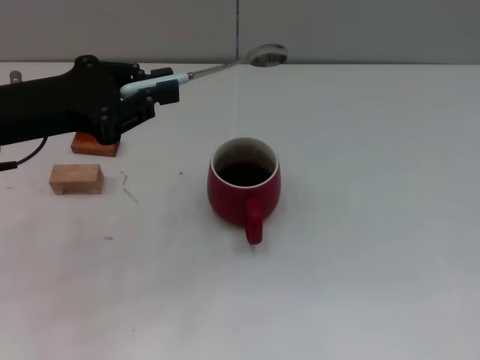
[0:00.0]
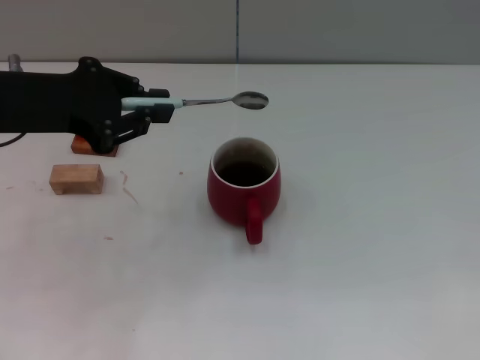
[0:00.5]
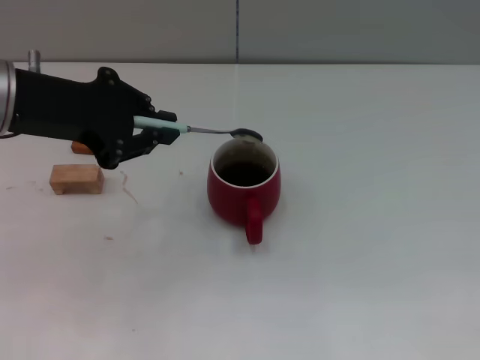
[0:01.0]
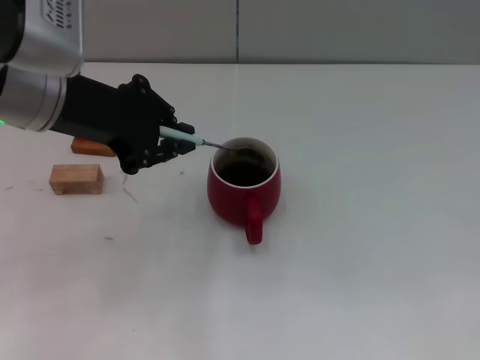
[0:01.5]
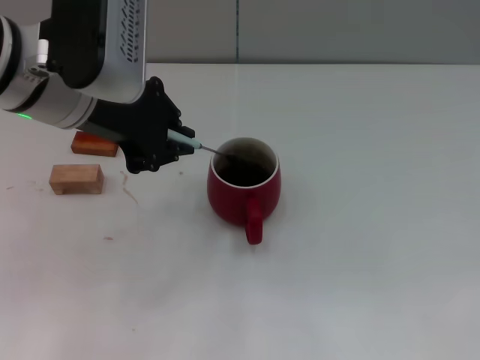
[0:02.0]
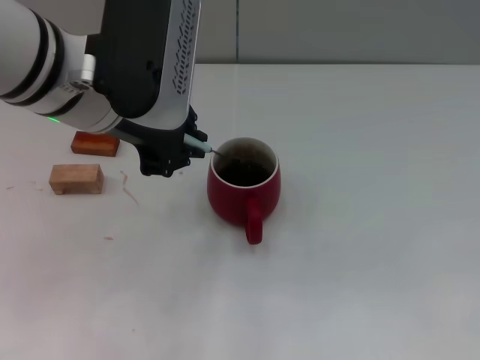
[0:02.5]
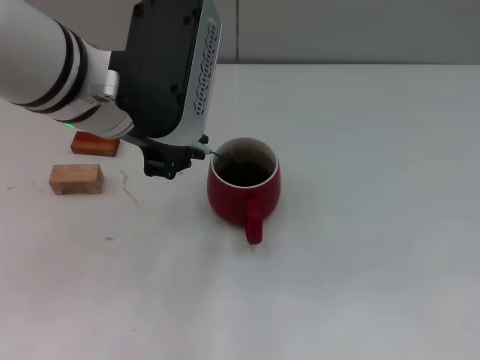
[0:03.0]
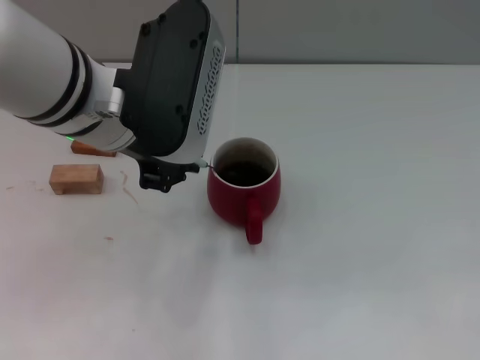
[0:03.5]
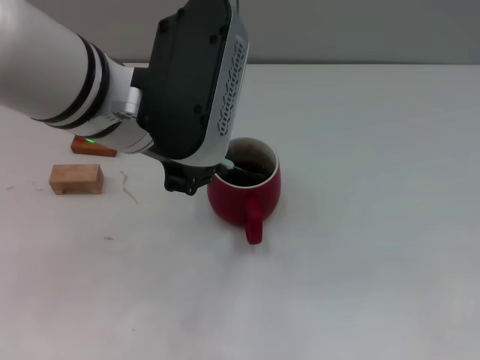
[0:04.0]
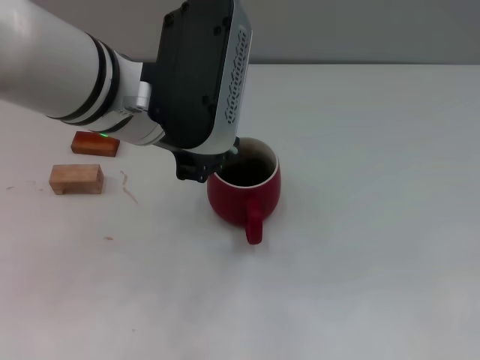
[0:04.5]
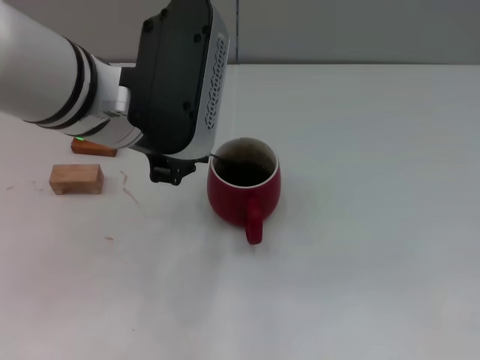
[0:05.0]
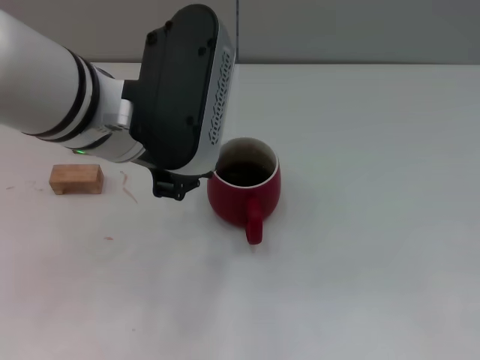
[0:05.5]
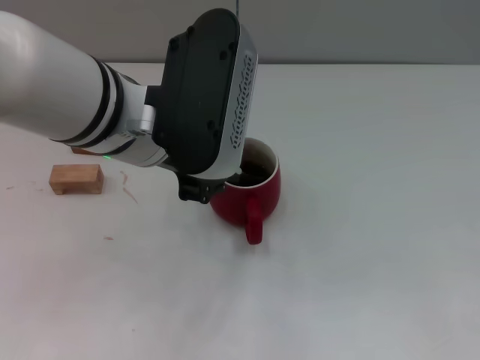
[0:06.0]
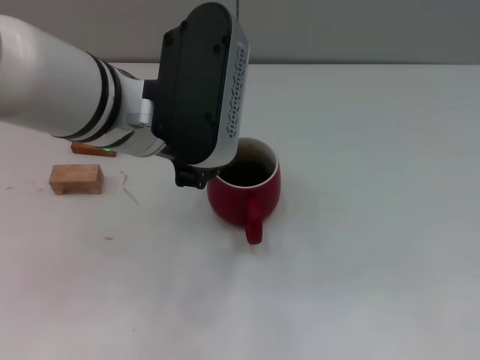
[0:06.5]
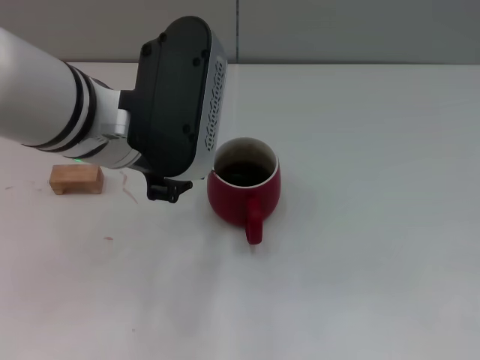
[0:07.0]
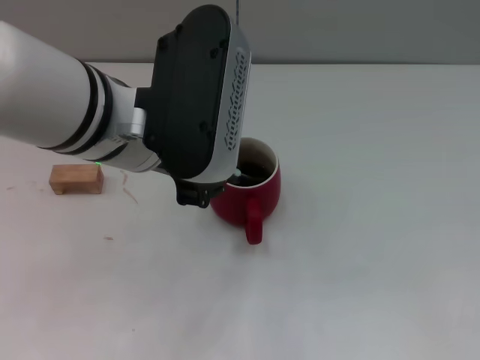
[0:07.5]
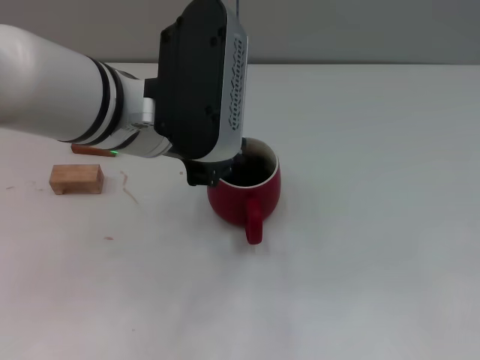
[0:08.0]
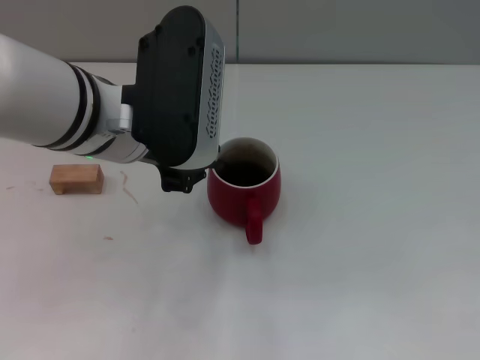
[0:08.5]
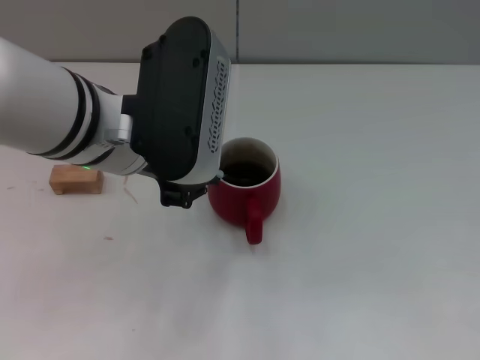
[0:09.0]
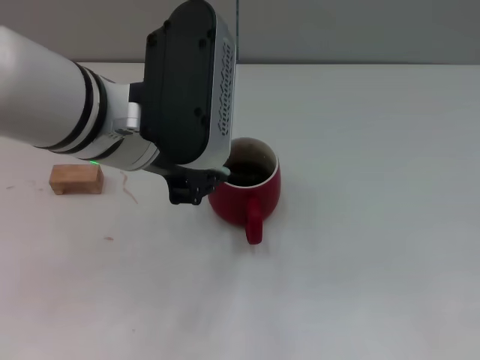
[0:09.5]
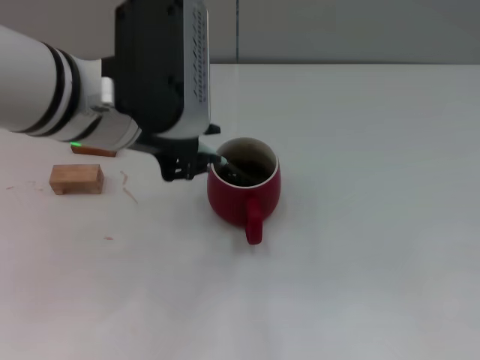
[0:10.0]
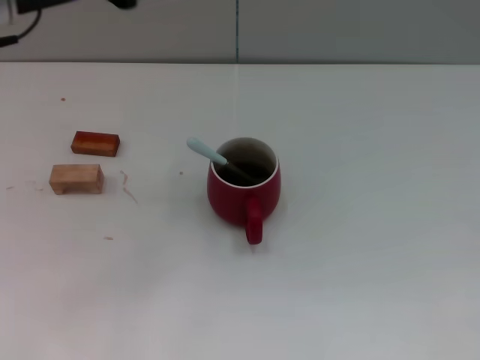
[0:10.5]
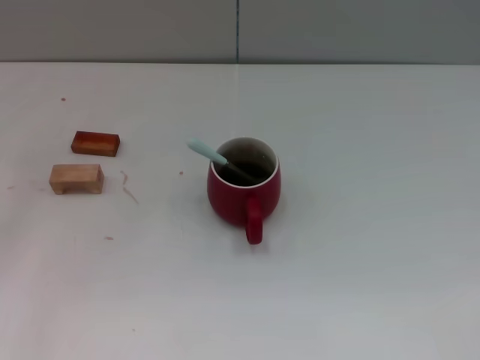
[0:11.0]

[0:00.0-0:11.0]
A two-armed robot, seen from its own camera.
Task of the whole recording: Move the red cup to the center, lift the blue spoon, stir it three times in the cup, and put the spoon into the cup.
Step, 0:00.0 to 0:10.0: Stir the coffee in the cup with the left gripper.
0:00.0 to 0:02.0: The left gripper shifts about 10 cm to the right and upward.
0:02.0 to 0:03.5: The grippers make only small movements.
0:03.5 to 0:09.0: The grippers move only a little.
0:09.0 to 0:11.0: The left gripper goes approximately 25 cm to the left.

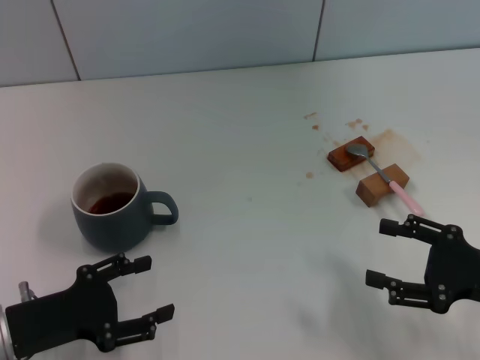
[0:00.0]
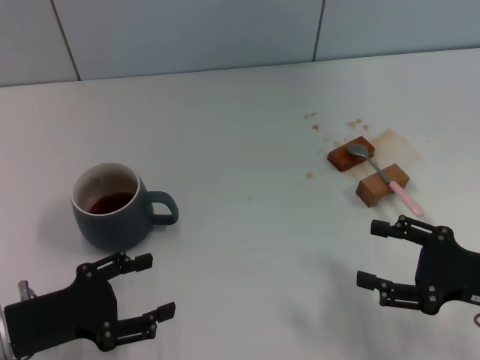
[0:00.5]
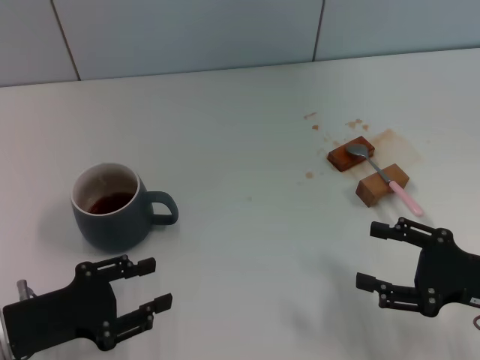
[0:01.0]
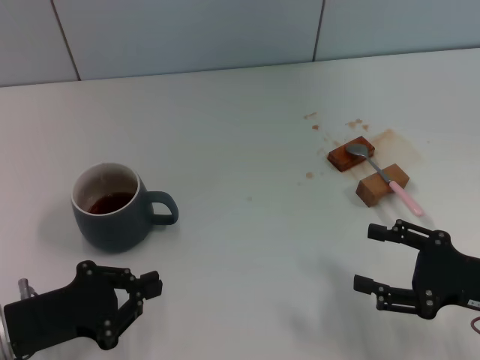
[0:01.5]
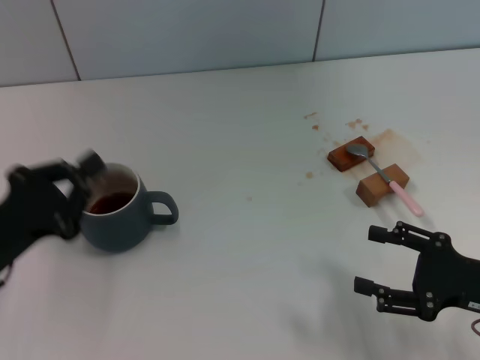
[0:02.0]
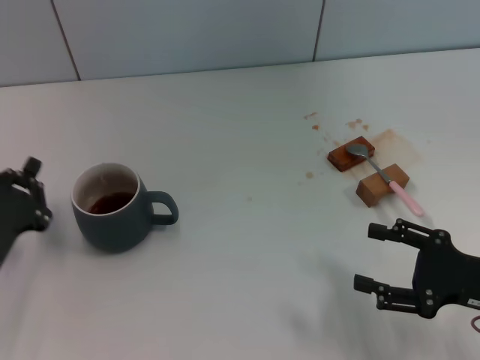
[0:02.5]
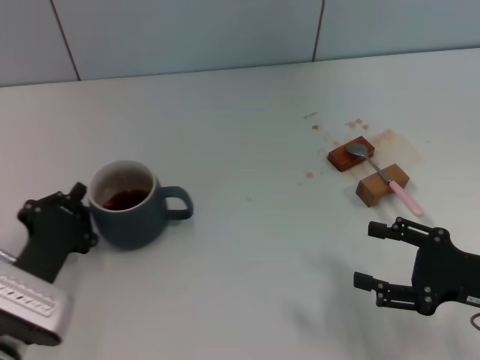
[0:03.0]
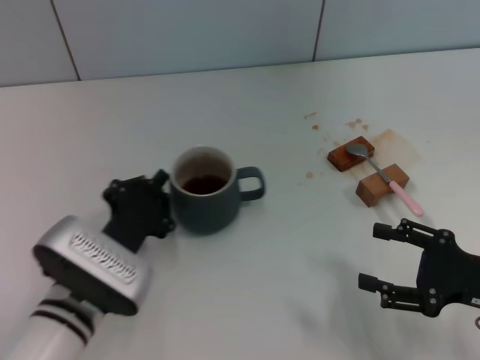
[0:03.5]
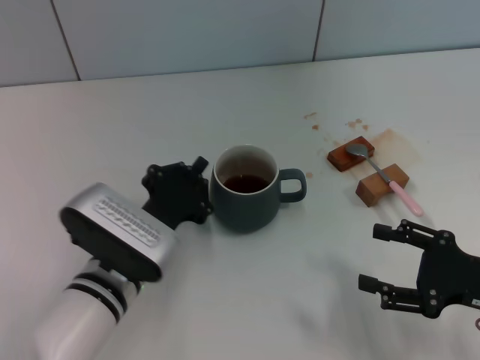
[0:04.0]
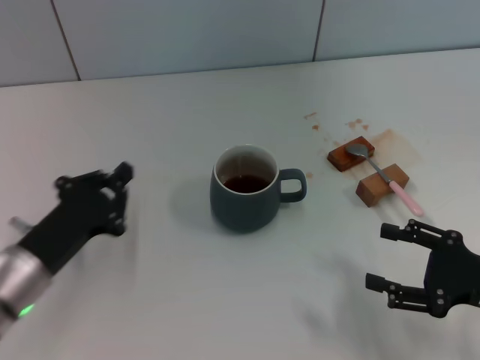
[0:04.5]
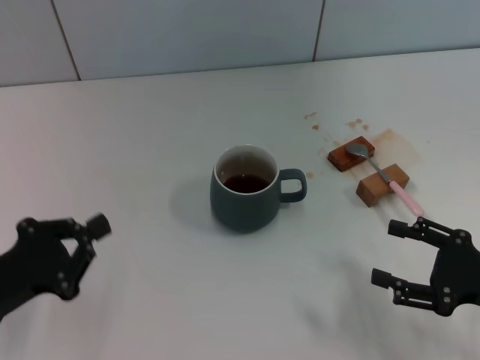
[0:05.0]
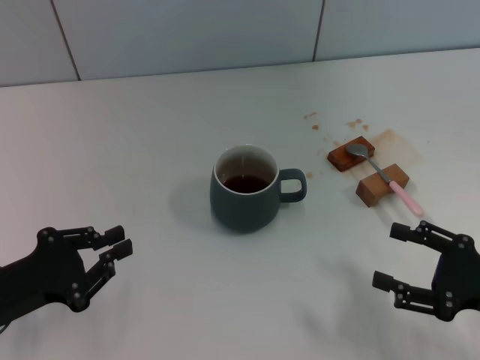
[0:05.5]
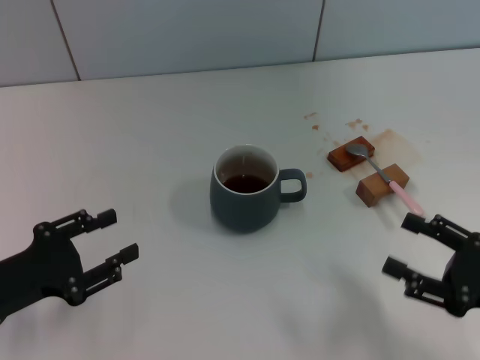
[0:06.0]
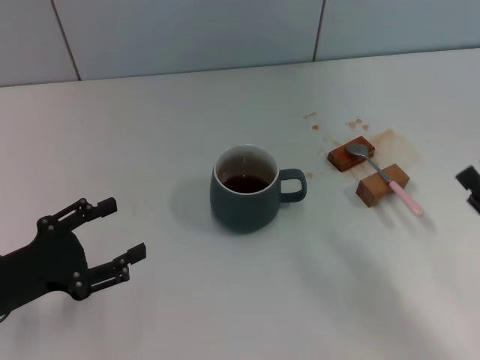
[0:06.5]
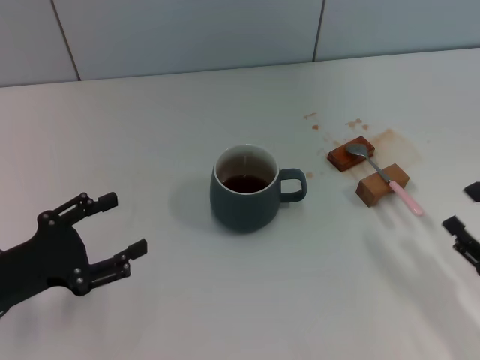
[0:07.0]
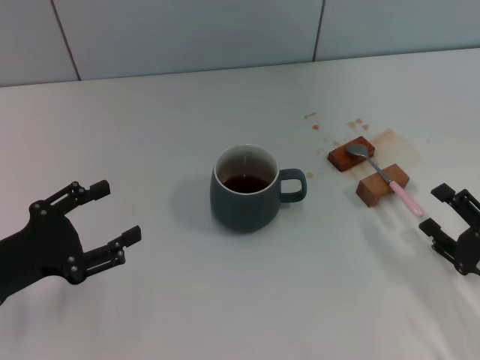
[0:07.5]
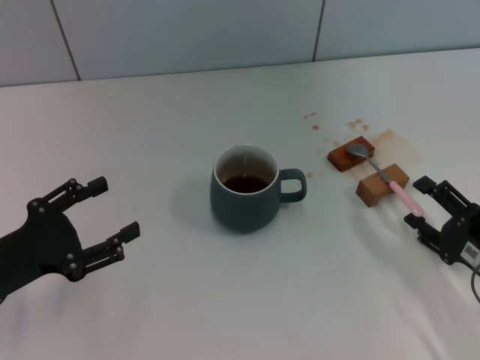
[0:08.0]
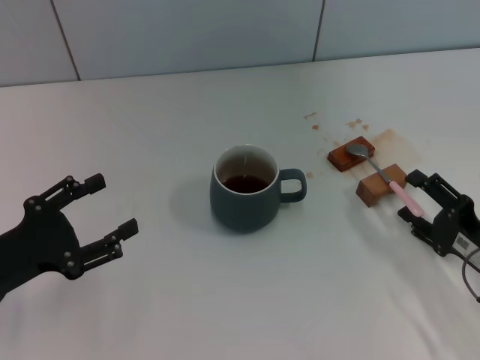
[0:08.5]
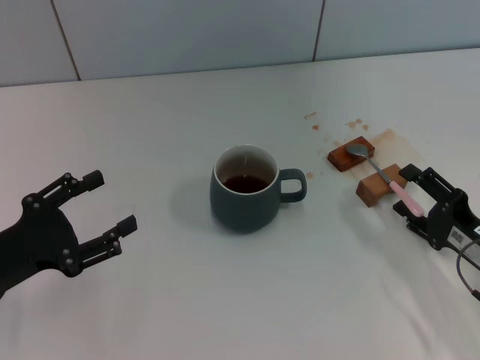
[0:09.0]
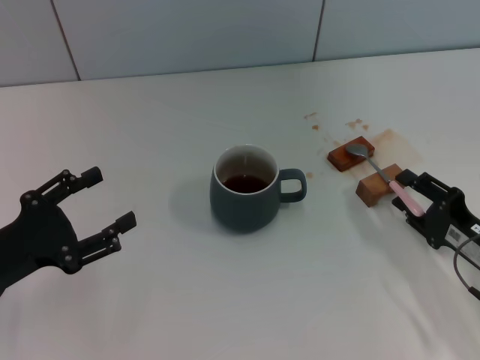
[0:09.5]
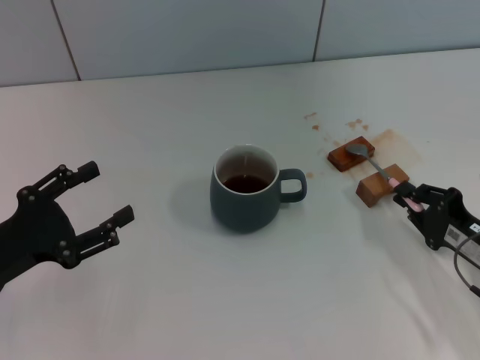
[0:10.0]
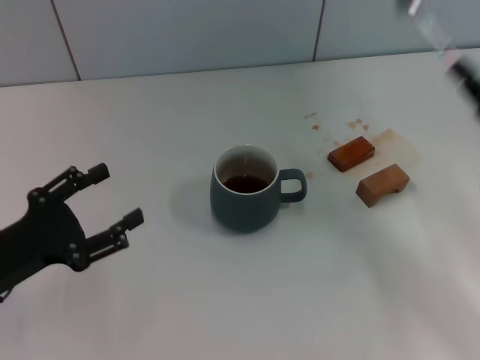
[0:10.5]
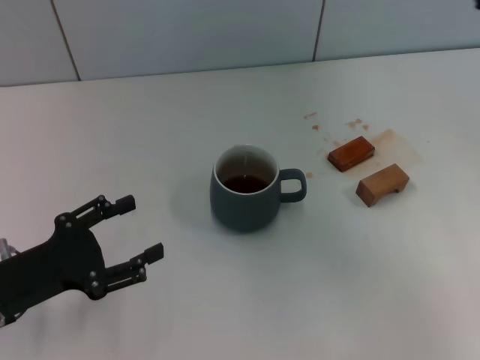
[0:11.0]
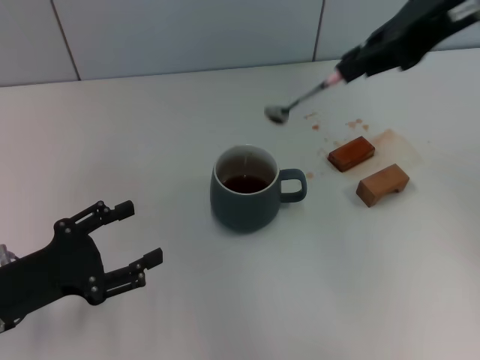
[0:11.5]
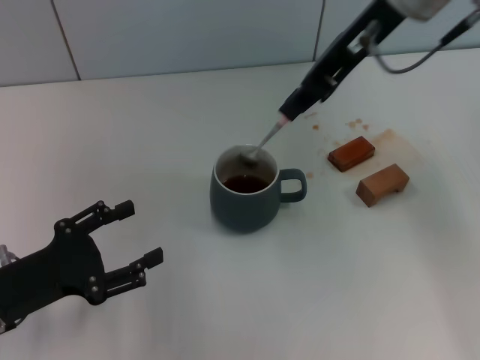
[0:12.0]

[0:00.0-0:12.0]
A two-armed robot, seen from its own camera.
Task of the whole recording: Move the grey cup to the center, lift the pink spoon, stir it three times in the cup, and put the spoon into the cup.
Step, 0:00.0 to 0:04.0: Move the cup with coffee to the center of view with the left gripper.
Step, 0:04.5 to 0:10.0: Pick up the spoon with the right gripper.
0:00.0 to 0:02.0: The left gripper closes its fingers.
0:02.0 to 0:04.0: The left gripper shifts roughly 15 cm to the right.
0:04.0 to 0:06.0: The left gripper is displaced to the left by about 15 cm, and opens.
0:06.0 to 0:08.0: The right gripper ends up some 5 cm from where it was, while the left gripper opens.
0:08.0 to 0:10.0: The right gripper closes up.
0:10.0 to 0:12.0: The right gripper goes approximately 35 cm upward, forward and to the left.

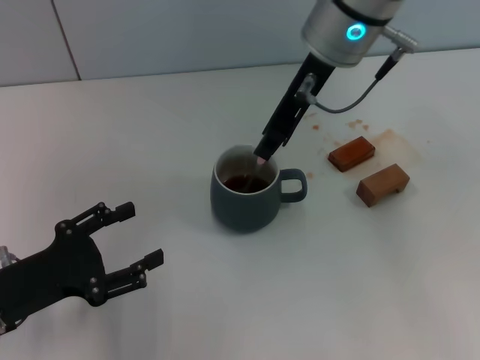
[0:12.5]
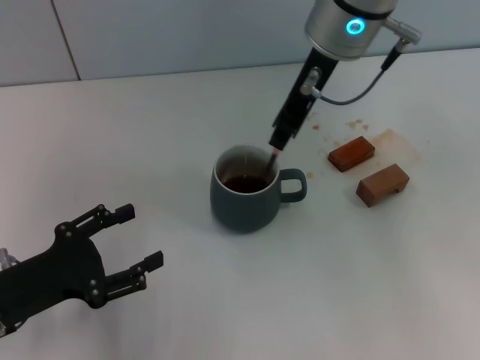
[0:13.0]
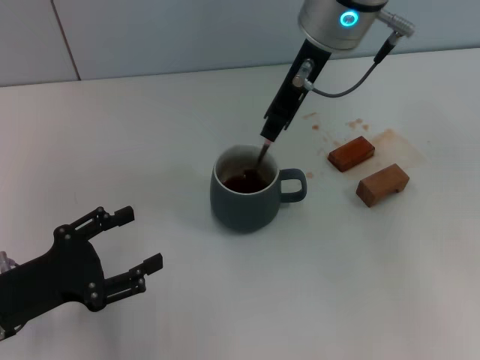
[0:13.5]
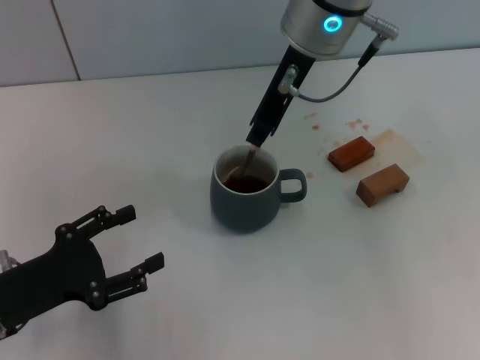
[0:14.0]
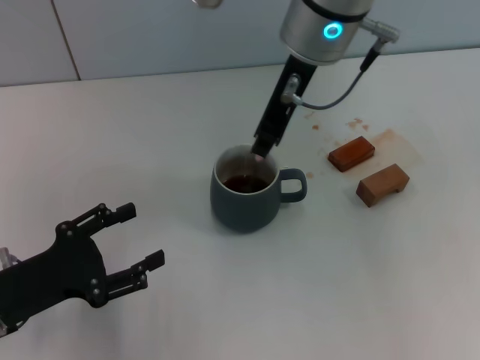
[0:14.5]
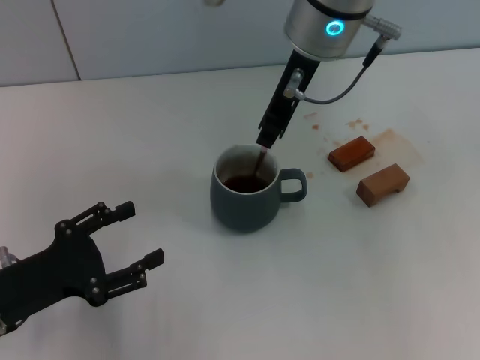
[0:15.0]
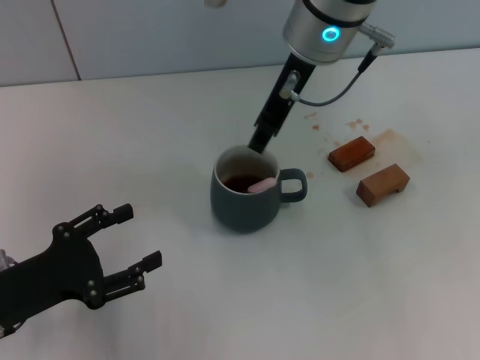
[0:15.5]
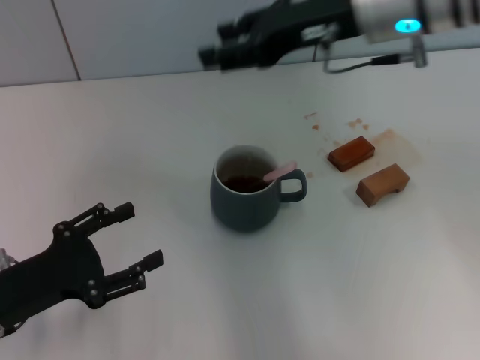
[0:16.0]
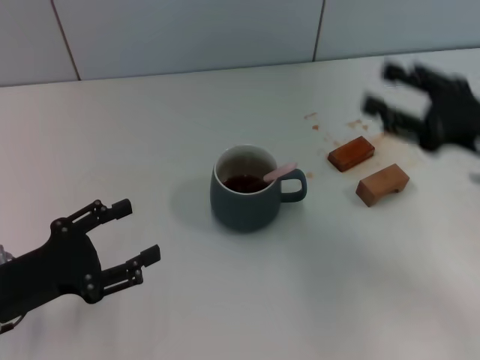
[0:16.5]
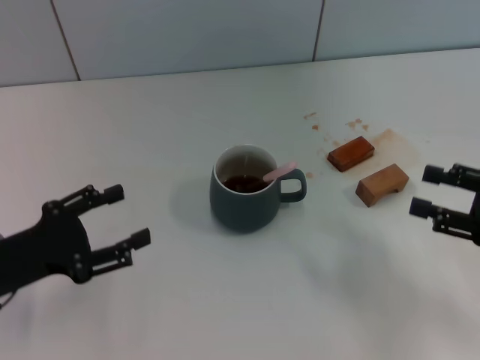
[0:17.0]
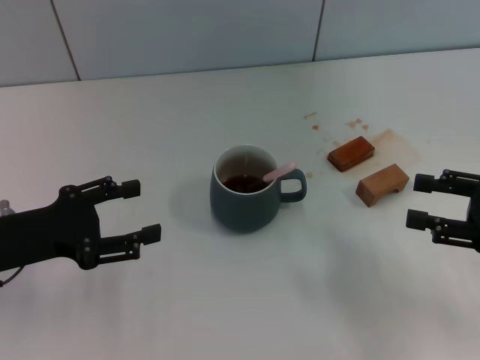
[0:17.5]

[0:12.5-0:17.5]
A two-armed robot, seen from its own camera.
Task of the whole recording: Move the grey cup to the center, lift the pink spoon, stir it three times in the cup, and put the spoon into the cup.
Step, 0:12.5 to 0:15.5: Stir the coffee in the cup with the right gripper.
0:12.5 to 0:15.0: The grippers move only a little.
0:15.0 to 0:17.5: The right gripper heads to the right, backward and downward, covering approximately 35 cm, and opens up. Meanwhile the left gripper ends up some 5 cm from where it was.
